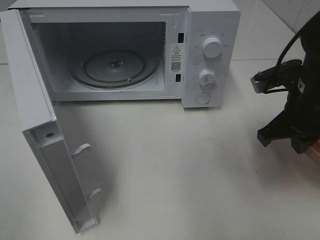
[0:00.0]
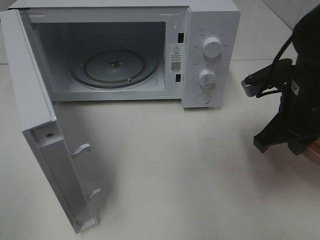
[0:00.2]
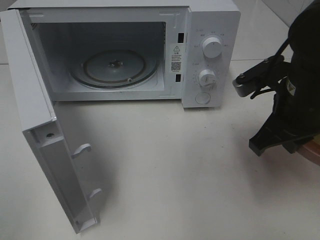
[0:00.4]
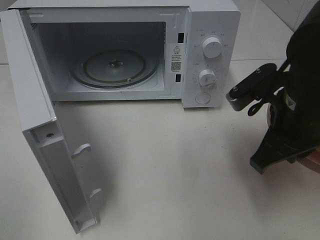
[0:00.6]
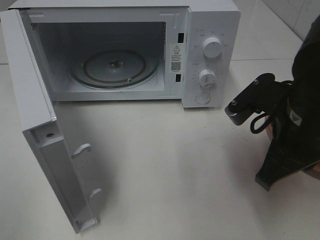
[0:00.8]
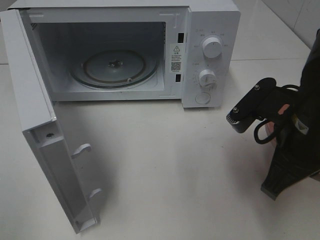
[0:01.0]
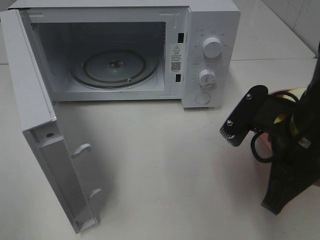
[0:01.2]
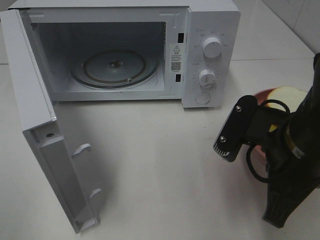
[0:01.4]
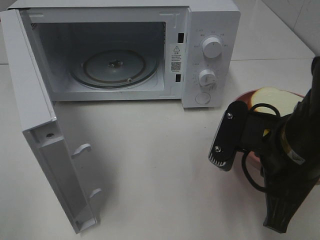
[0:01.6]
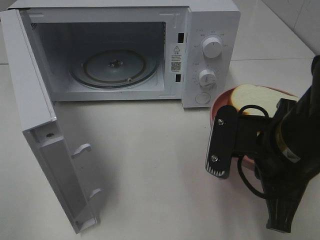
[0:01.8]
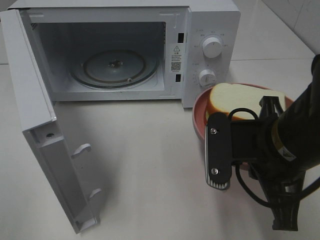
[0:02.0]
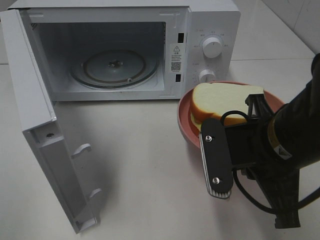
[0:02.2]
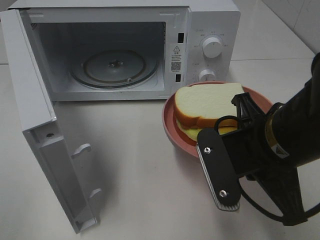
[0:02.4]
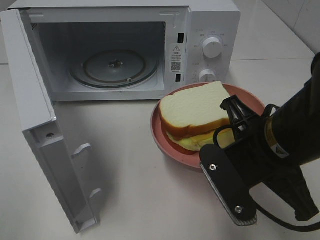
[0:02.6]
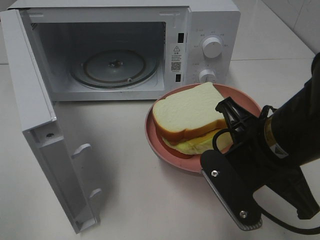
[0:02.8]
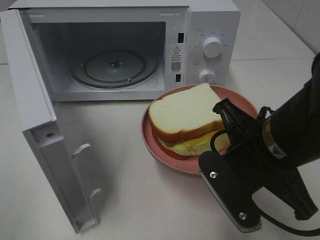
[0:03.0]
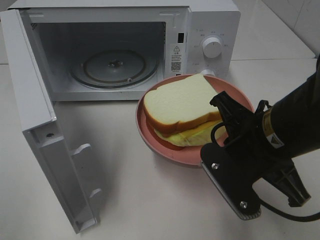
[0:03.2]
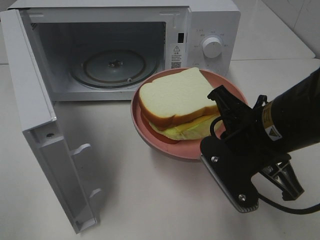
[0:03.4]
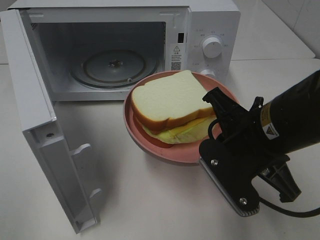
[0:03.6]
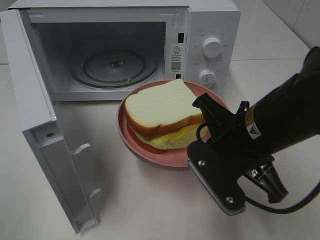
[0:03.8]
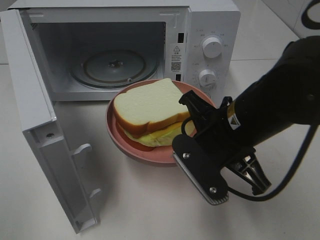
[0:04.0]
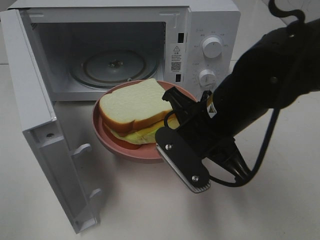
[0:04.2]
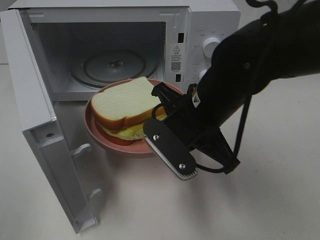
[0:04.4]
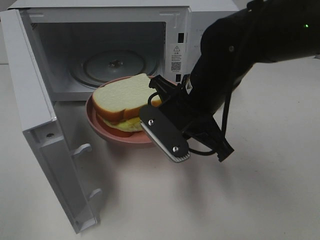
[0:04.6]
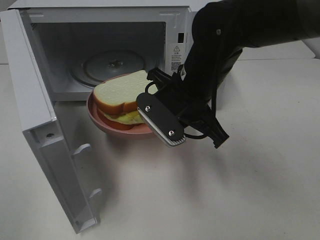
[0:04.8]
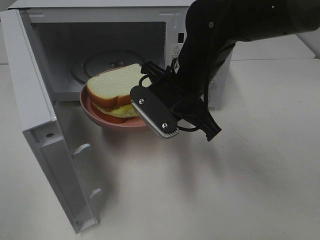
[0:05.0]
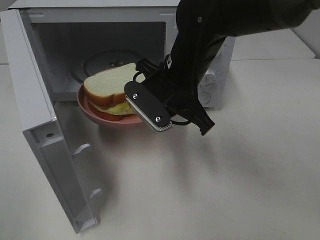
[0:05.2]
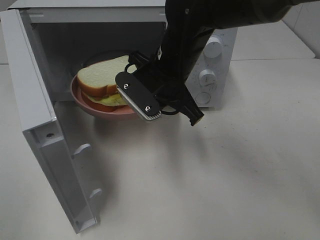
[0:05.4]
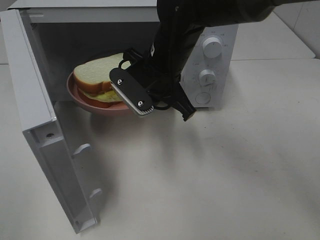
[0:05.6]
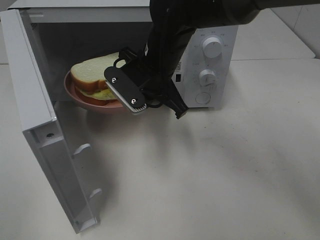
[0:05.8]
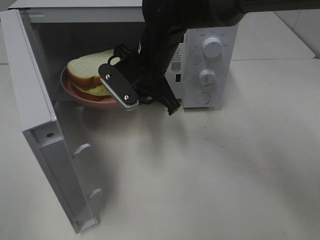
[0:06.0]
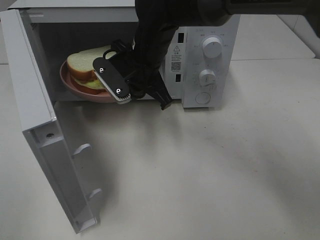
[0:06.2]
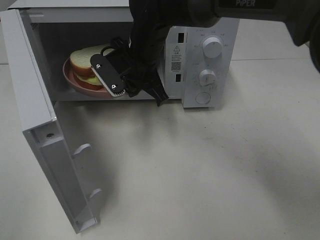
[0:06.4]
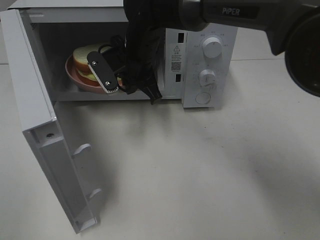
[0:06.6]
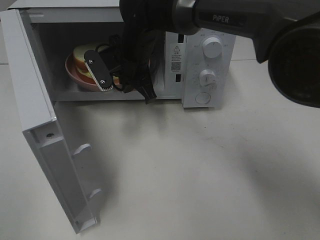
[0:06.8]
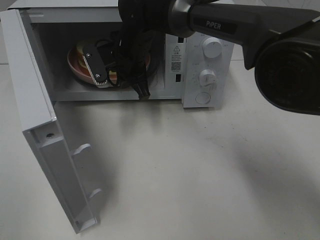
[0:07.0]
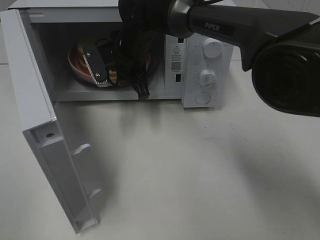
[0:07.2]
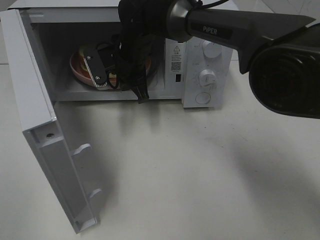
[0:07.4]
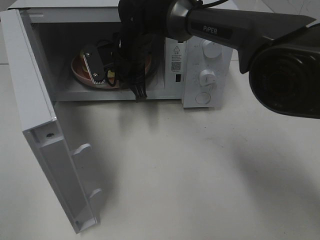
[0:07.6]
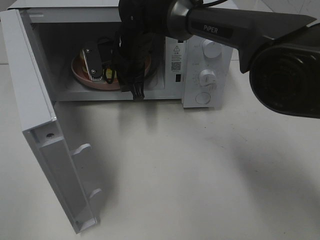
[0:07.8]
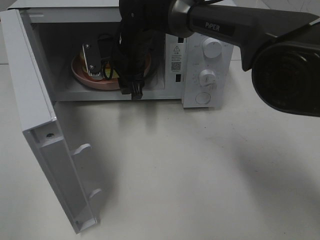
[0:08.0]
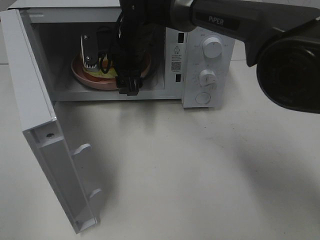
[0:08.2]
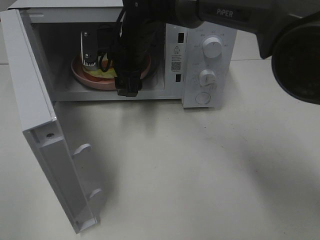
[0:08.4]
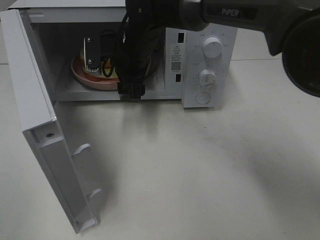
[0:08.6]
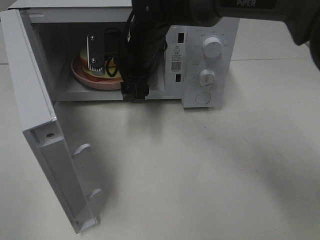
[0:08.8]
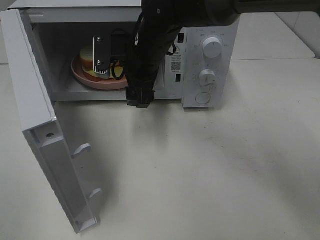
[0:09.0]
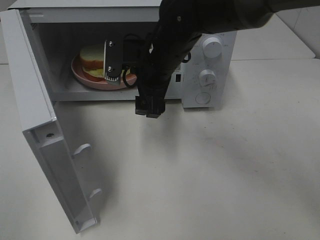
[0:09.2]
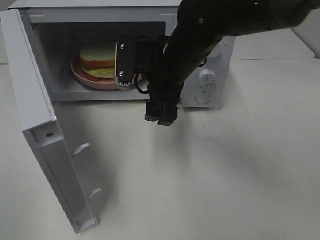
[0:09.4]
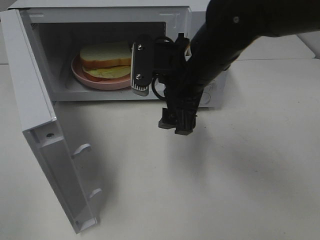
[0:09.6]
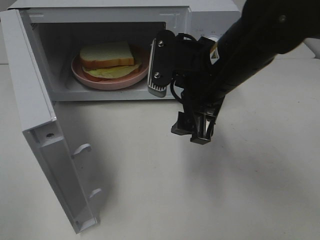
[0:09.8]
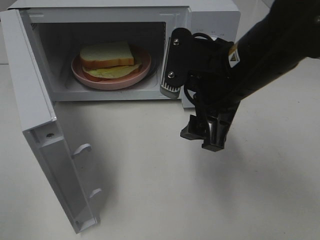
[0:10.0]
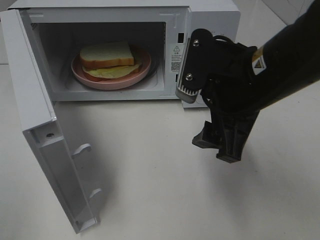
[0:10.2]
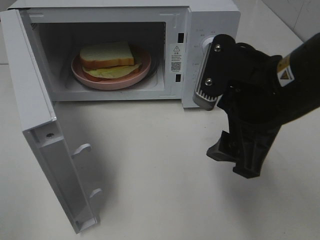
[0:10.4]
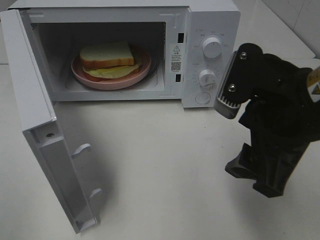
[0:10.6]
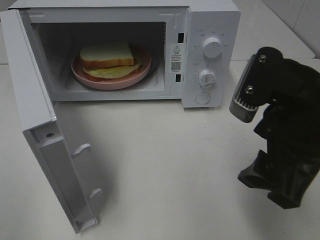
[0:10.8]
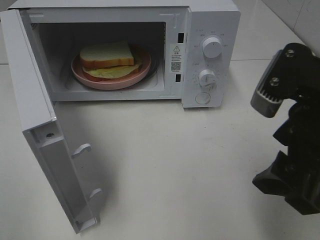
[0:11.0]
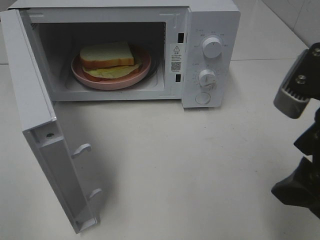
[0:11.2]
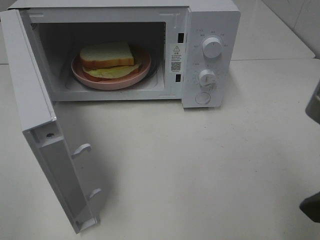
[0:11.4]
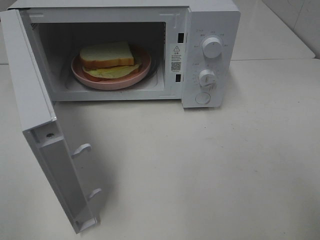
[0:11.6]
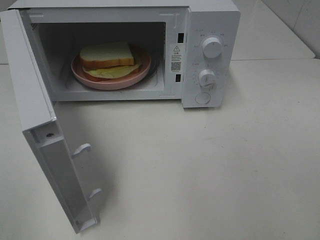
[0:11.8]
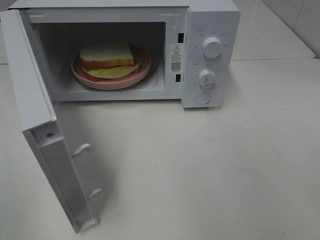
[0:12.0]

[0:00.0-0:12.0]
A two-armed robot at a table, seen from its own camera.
Task of the whole recording: Heat Sandwich.
Step, 0:00.0 to 0:08.4: Right hand: place the plate in the microwave.
0:00.0 to 0:01.6: The right gripper moves backward and to the left, roughly 15 cm.
0:03.0 to 0:04.4: The right gripper goes about 10 cm forward and to the left.
0:04.4 to 0:06.0: The right gripper moves forward and to the left, some 15 cm.
0:06.0 to 0:07.6: The right gripper heads forward, covering roughly 5 cm.
0:07.6 to 0:09.0: The right gripper moves backward, roughly 5 cm, and opens its fingers.
0:09.0 to 0:10.4: The right gripper goes roughly 25 cm backward and to the right.
0:10.4 to 0:12.0: The right gripper goes approximately 20 cm backward and to the right.

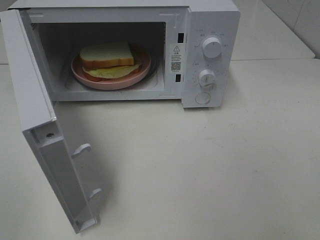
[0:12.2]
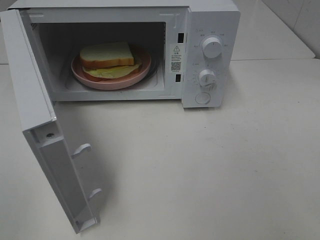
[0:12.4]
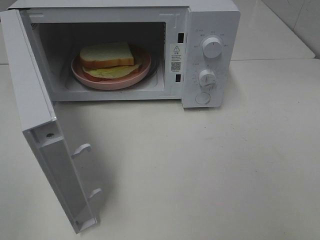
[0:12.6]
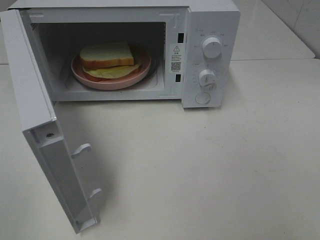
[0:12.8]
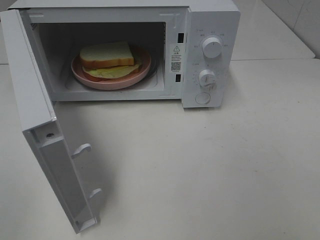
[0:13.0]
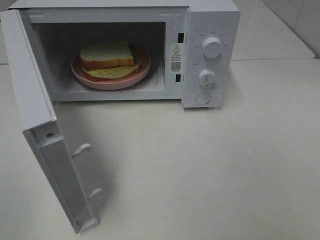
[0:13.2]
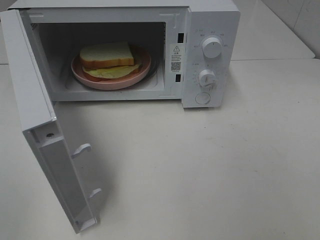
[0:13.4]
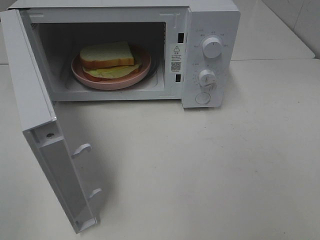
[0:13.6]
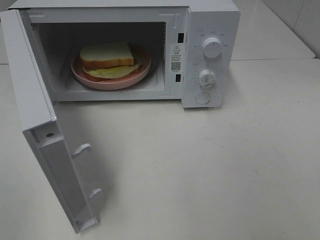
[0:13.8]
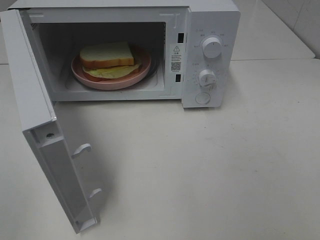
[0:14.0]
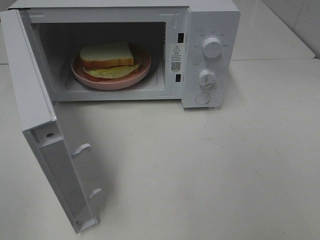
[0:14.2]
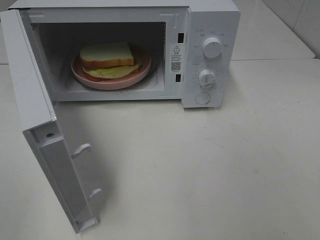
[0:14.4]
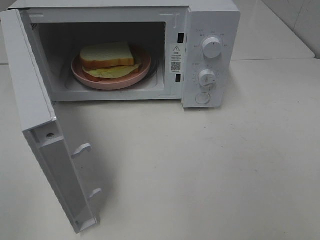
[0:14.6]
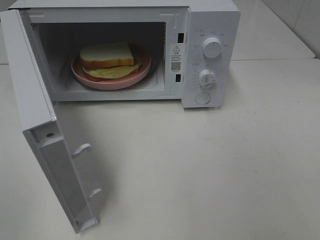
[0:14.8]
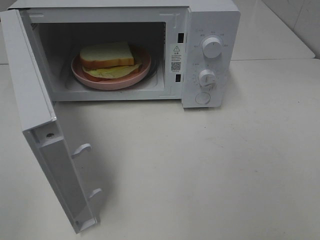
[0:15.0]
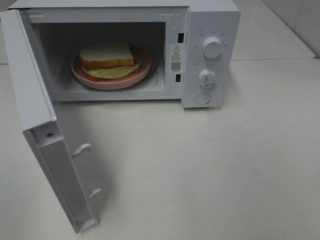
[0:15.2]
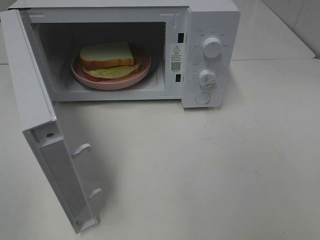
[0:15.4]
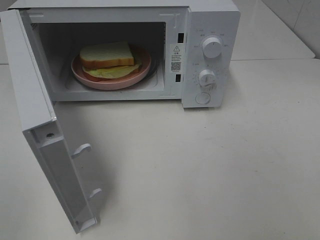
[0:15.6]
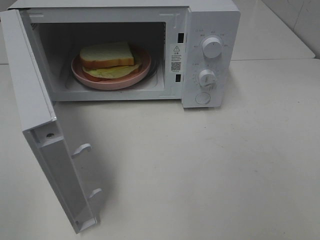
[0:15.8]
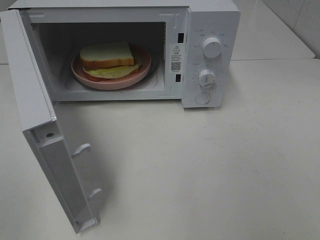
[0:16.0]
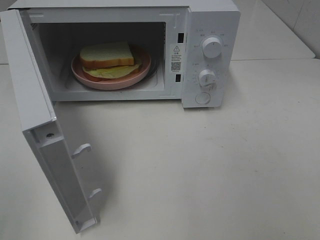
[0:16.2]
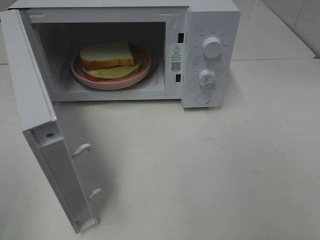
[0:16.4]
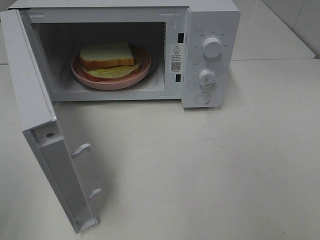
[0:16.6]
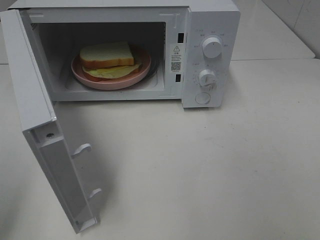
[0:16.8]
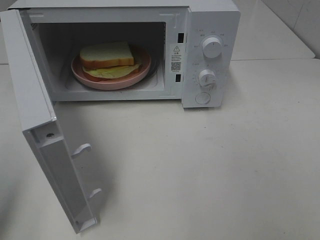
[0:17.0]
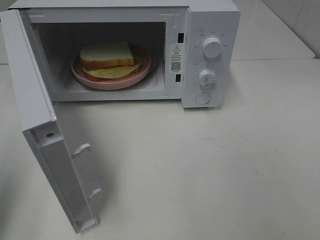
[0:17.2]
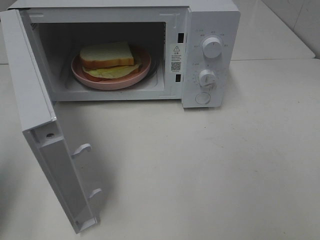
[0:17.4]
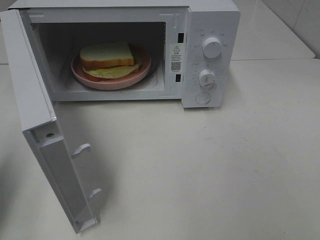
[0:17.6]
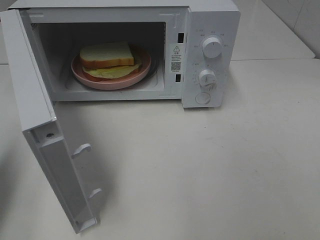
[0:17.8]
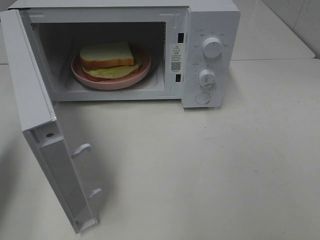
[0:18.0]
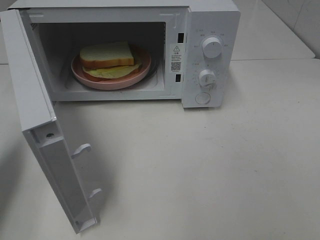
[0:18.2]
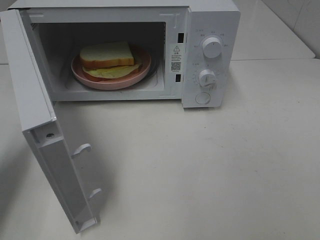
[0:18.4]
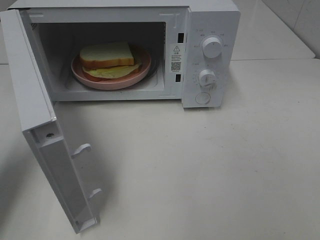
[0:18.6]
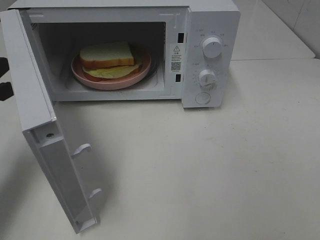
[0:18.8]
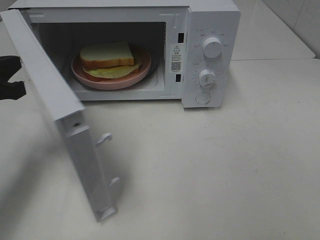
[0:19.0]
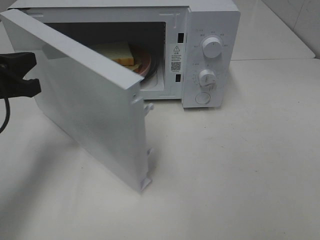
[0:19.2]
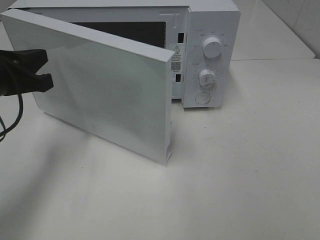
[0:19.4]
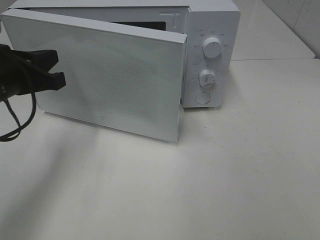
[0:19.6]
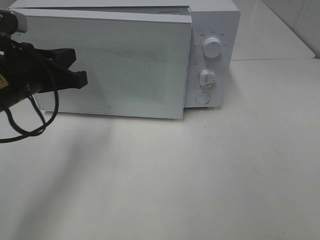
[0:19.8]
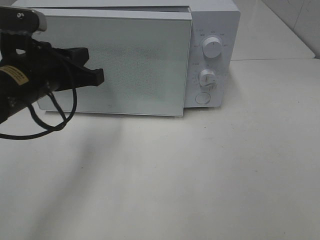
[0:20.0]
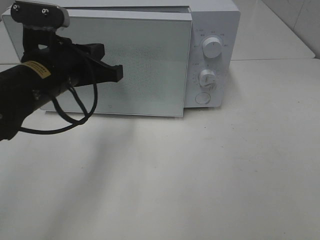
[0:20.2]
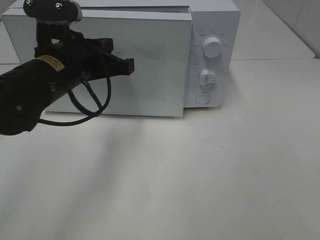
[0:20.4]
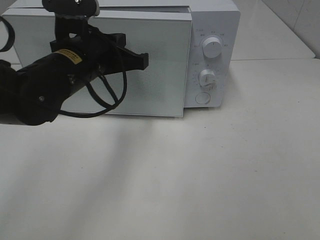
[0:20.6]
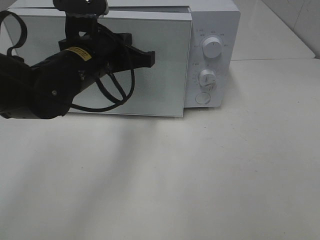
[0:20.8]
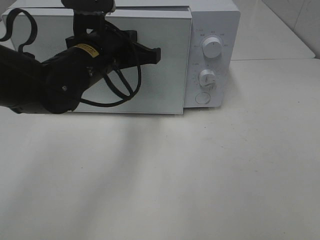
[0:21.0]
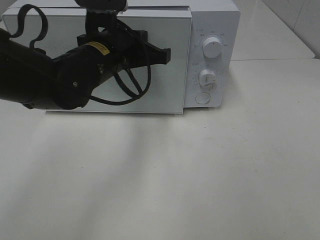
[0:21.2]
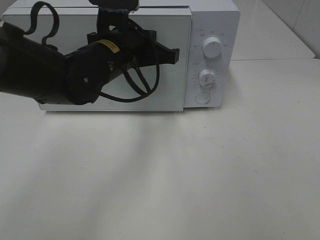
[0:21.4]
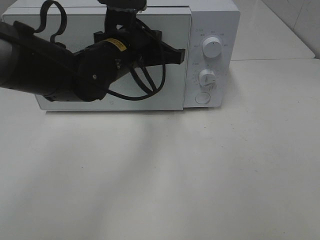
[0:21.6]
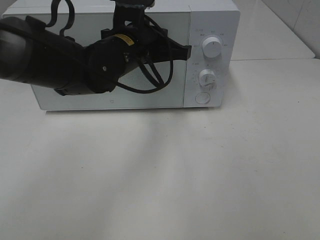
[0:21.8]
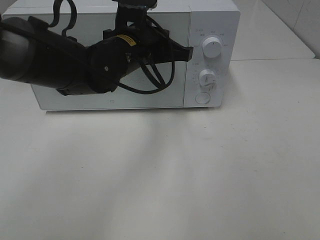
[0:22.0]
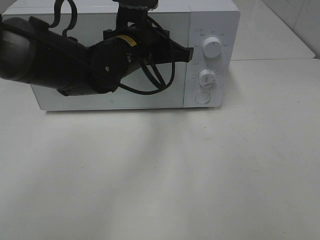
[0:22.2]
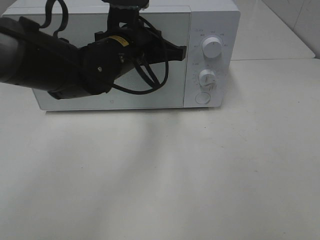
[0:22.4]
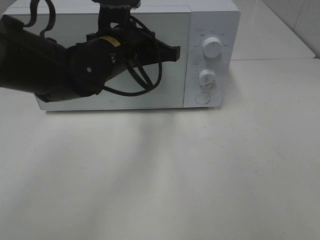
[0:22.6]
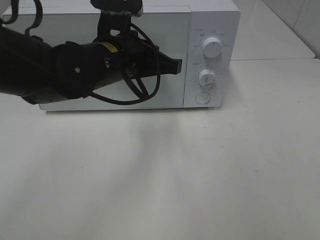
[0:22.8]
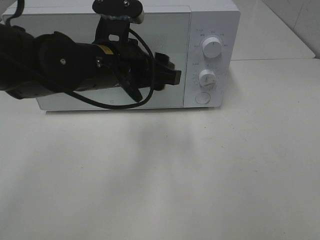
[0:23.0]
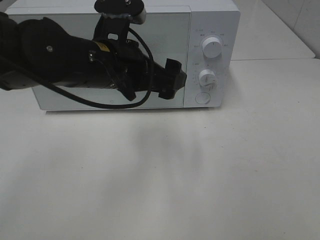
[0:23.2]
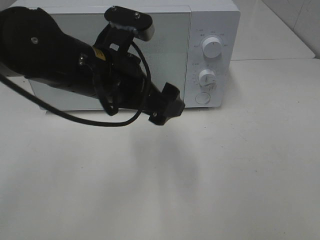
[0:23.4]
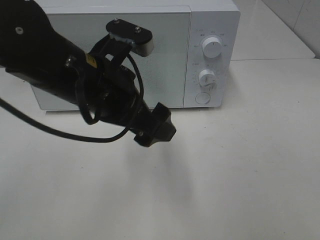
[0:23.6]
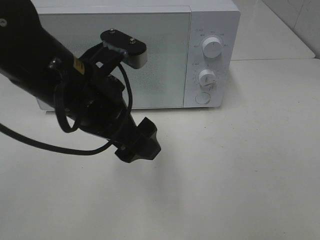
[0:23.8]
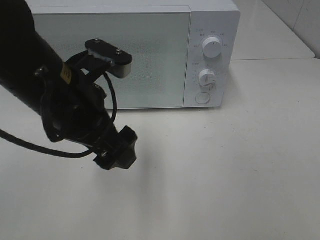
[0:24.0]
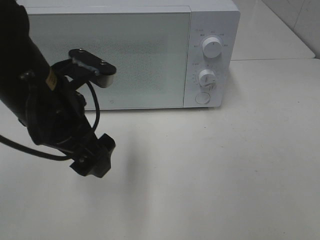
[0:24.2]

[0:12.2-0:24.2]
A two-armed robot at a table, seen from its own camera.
Task of the whole recording: Heat Sandwich.
Step, 0:12.2 to 0:23.2: Left hand: close the microwave door.
0:13.8 to 0:15.2: Neither gripper changes place.
0:16.6 to 0:18.2: The left gripper moves forward and downward, approximately 15 cm, and closes.
0:18.2 to 0:19.8: The left gripper is displaced to the right and forward by about 15 cm.
0:19.8 to 0:21.2: The left gripper heads to the right and forward, covering roughly 15 cm.
0:21.2 to 0:22.6: The grippers stay close to where they were, moving slightly.
0:22.6 to 0:24.2: The left gripper heads backward and to the left, covering some 15 cm, and opens.
